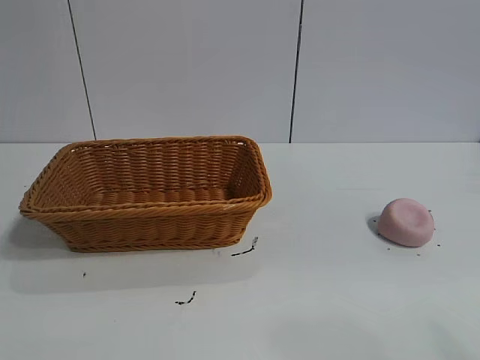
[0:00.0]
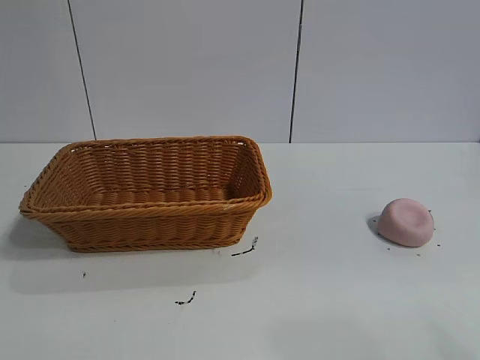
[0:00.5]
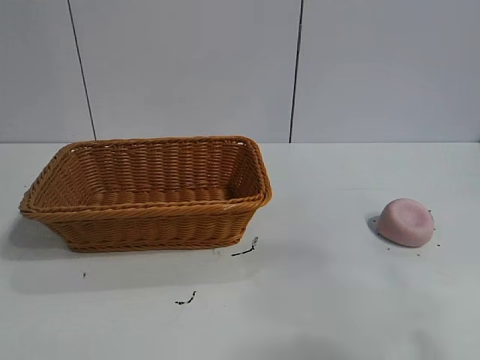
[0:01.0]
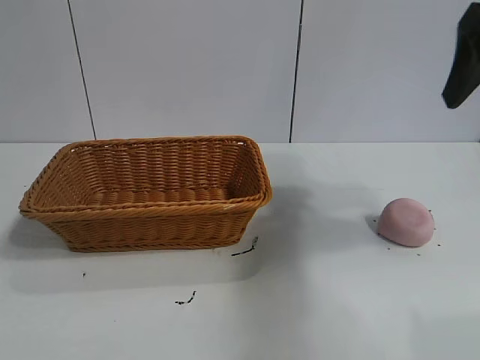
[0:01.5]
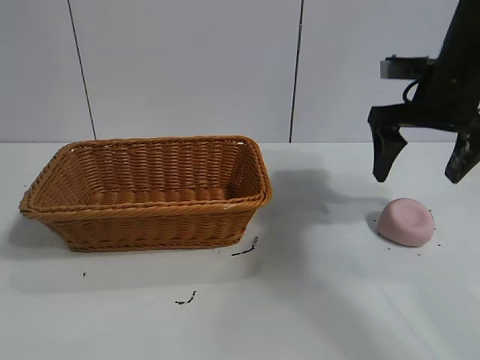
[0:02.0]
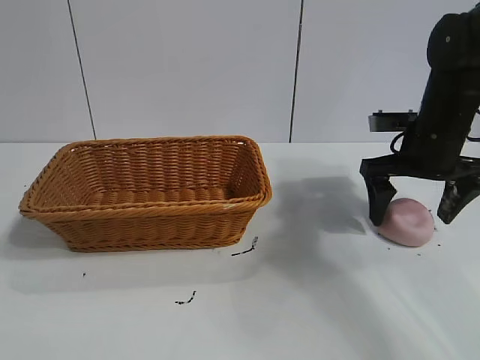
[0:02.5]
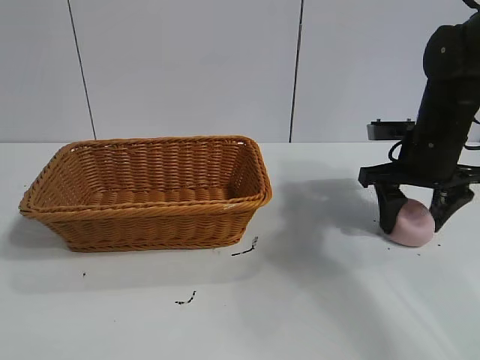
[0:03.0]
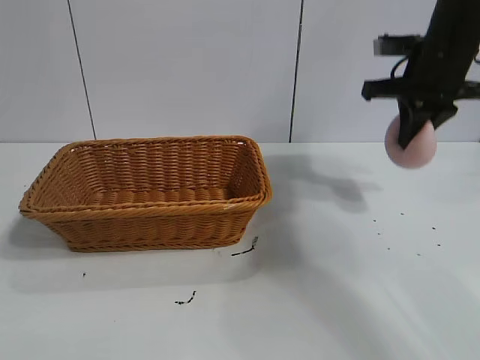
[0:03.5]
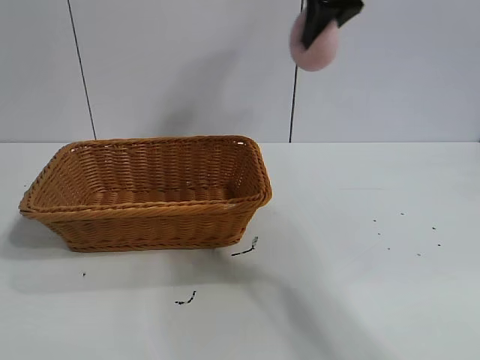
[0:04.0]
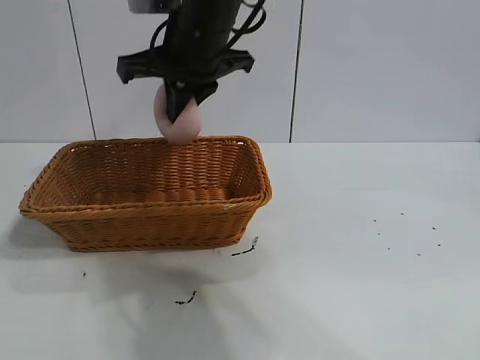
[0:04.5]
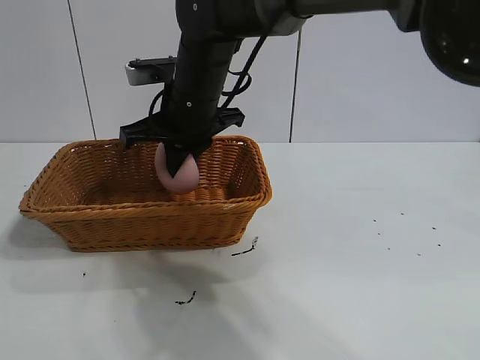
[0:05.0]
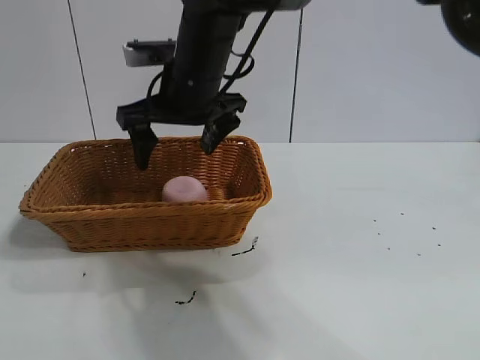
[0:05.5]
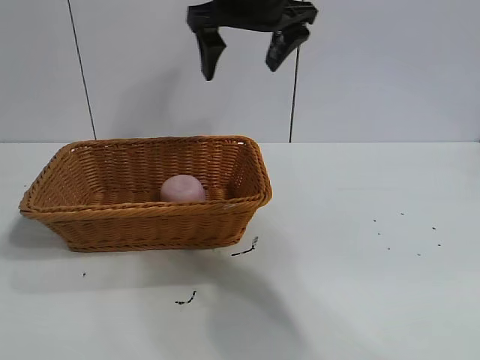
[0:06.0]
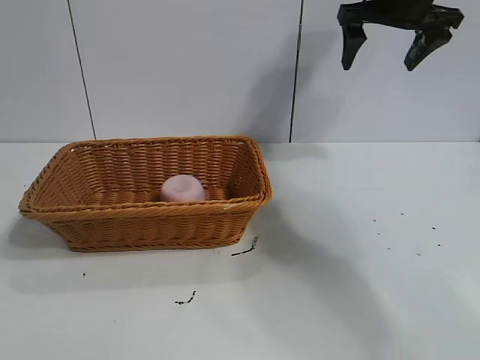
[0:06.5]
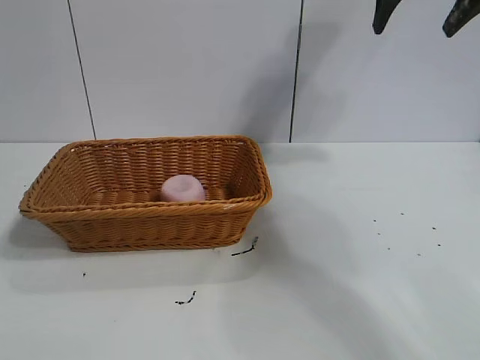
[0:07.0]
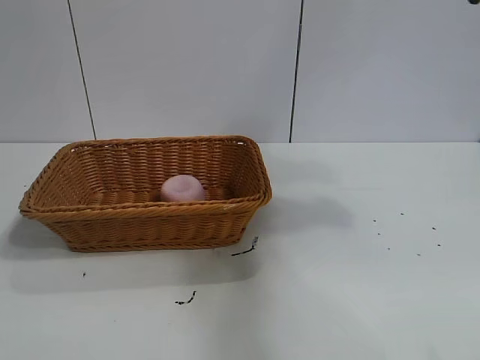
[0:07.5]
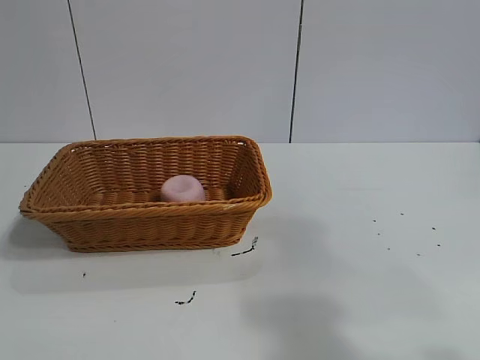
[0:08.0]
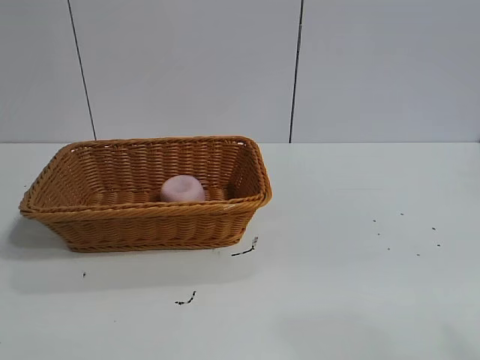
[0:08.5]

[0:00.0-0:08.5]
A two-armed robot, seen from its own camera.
Task of the whole recording: pick up the peach and put it into the basket.
Step, 0:00.0 to 0:03.0: Grasp the peach with right gripper.
Step, 0:03.5 to 0:05.0: Place the peach in the basket with right gripper.

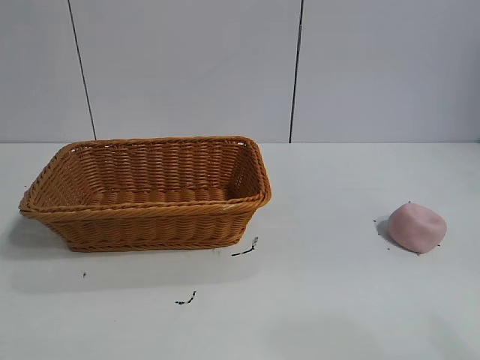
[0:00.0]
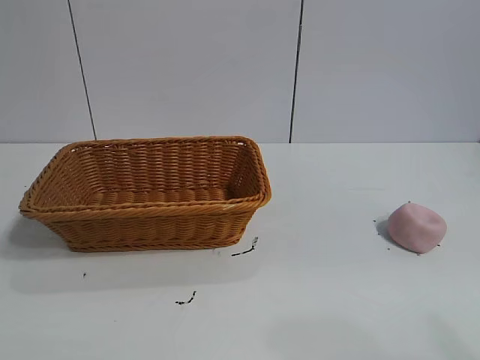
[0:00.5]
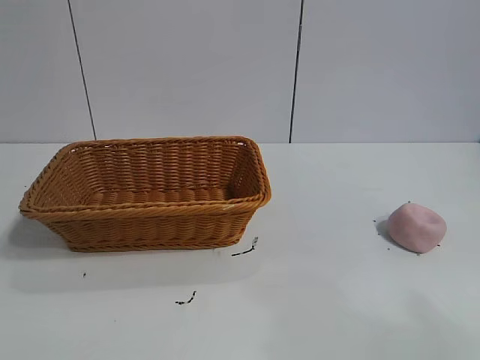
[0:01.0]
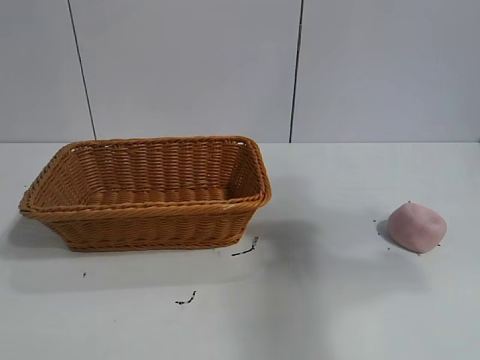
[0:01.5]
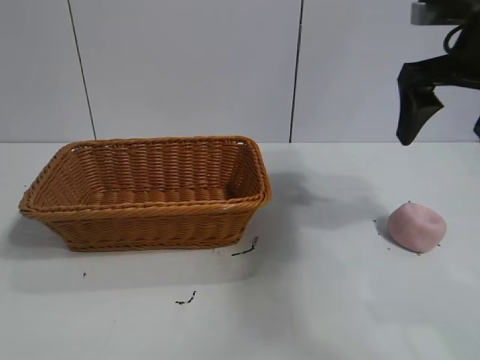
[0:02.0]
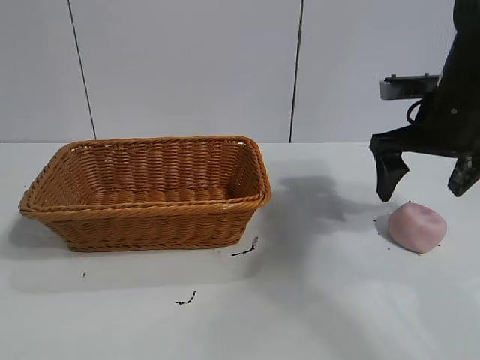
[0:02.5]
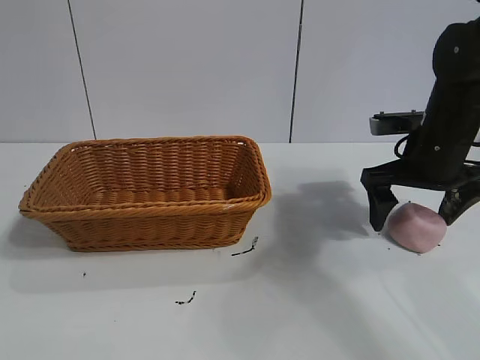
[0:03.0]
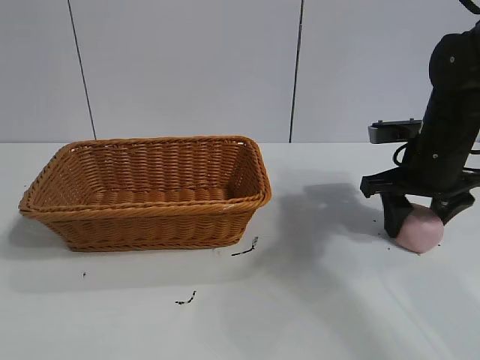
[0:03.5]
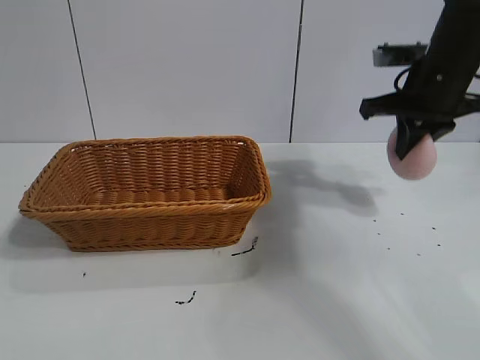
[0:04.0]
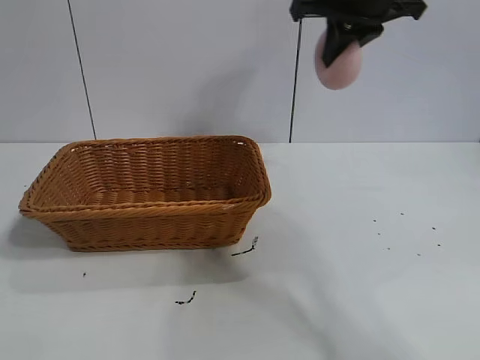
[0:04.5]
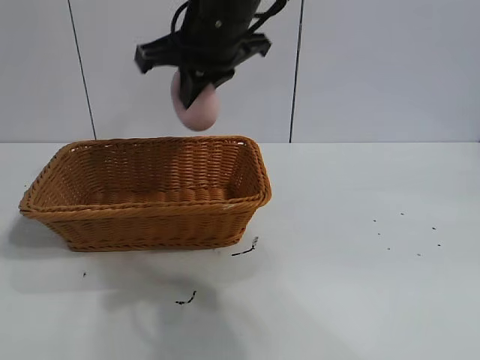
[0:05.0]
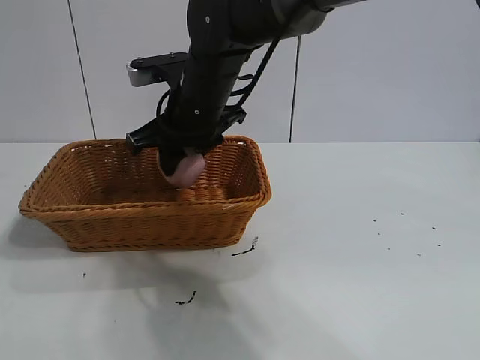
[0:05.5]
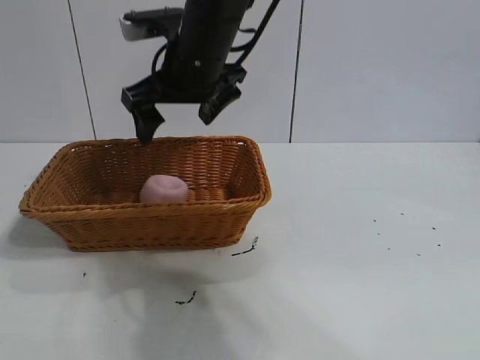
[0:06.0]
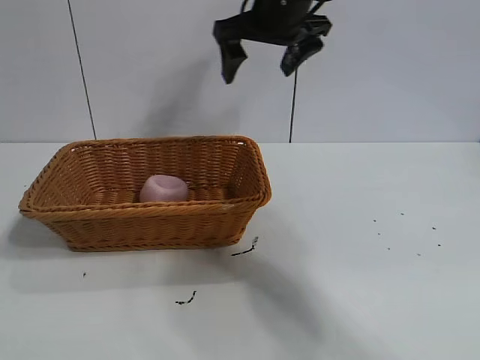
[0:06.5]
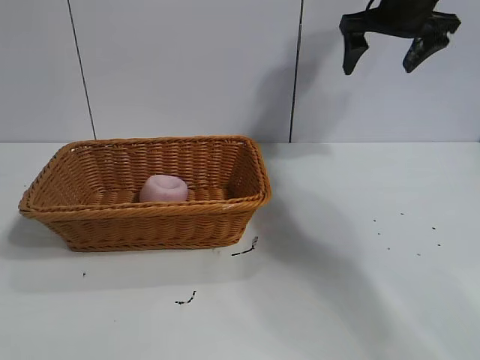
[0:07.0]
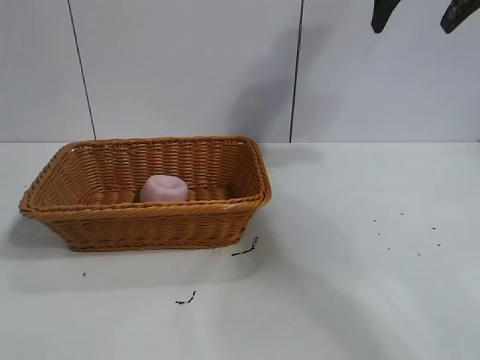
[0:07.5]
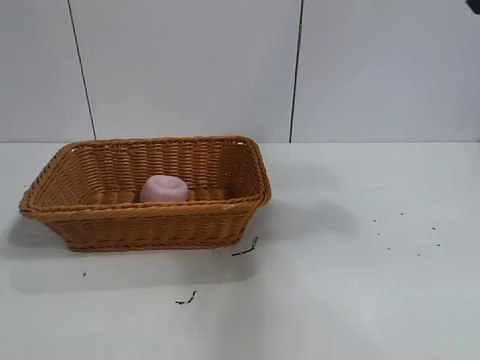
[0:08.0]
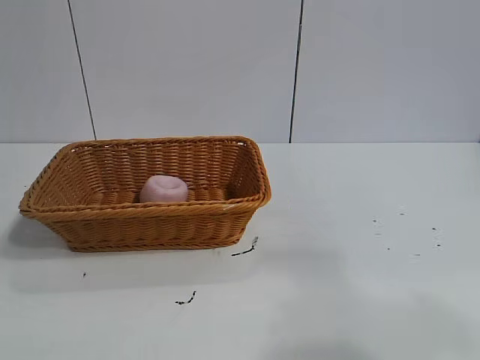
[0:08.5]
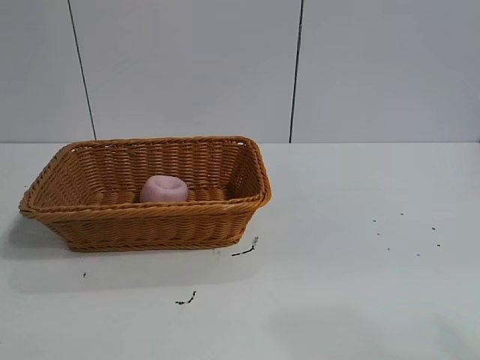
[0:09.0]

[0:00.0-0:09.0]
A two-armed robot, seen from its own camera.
Task of the whole recording: pick up the peach and put it into the basket.
Step, 0:01.0 to 0:03.5: Grasp the peach with right gripper.
Step, 0:04.0 to 0:05.5: Place the peach in the basket with right gripper.
